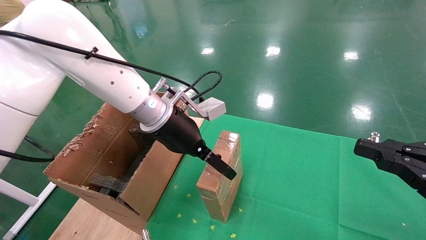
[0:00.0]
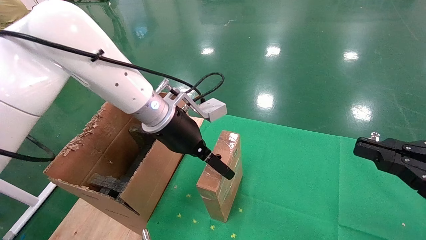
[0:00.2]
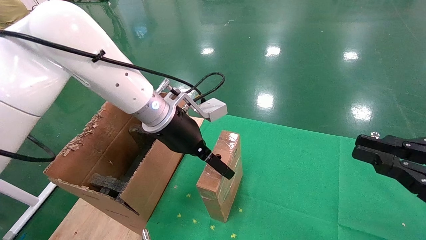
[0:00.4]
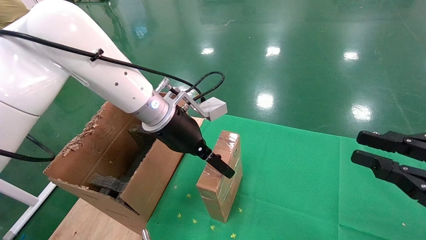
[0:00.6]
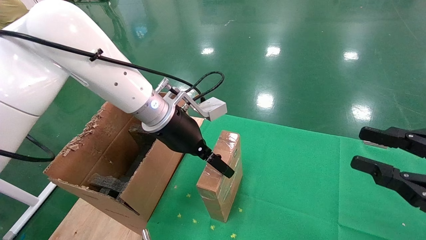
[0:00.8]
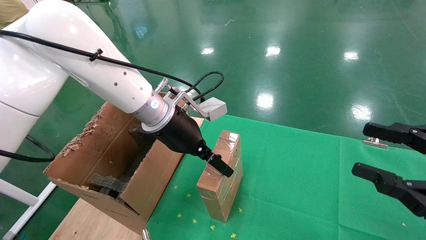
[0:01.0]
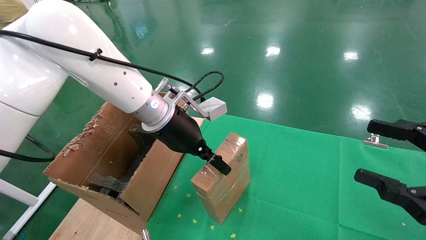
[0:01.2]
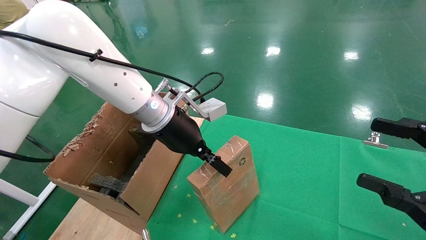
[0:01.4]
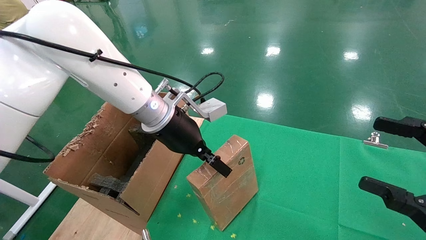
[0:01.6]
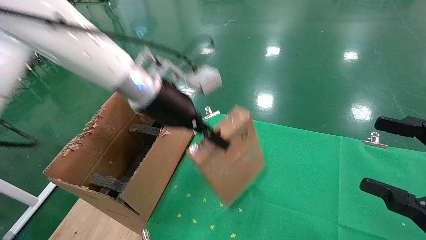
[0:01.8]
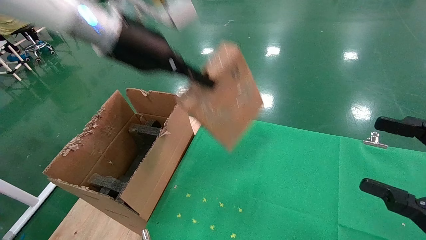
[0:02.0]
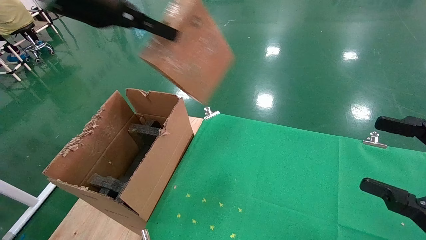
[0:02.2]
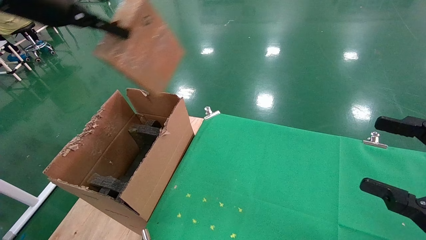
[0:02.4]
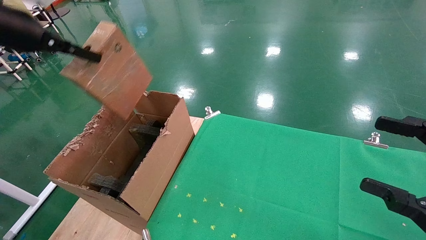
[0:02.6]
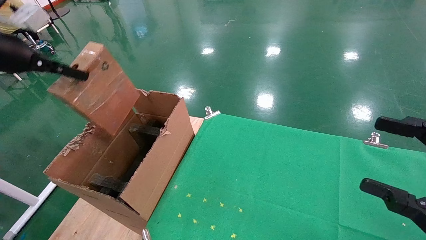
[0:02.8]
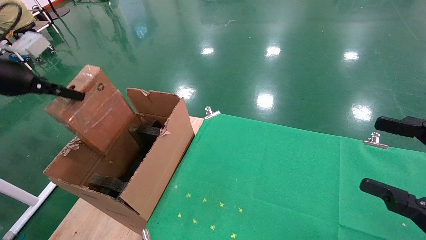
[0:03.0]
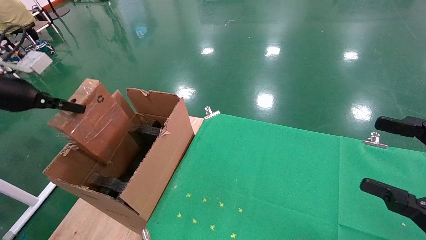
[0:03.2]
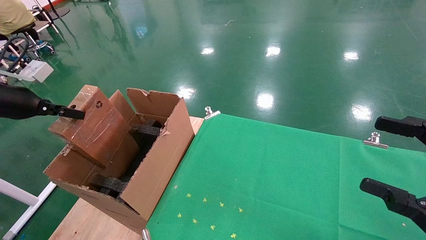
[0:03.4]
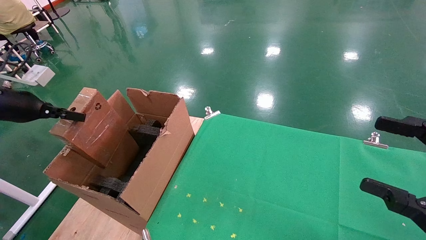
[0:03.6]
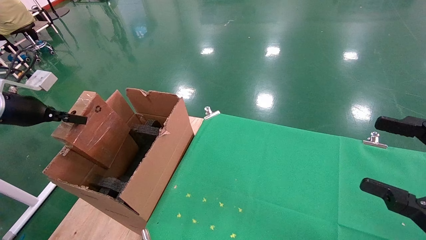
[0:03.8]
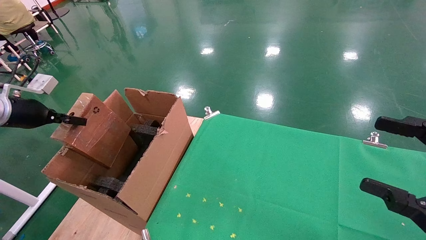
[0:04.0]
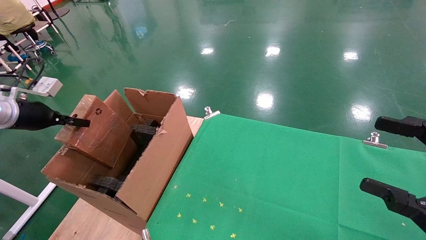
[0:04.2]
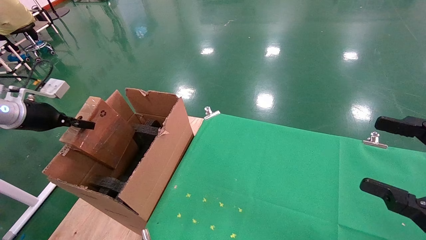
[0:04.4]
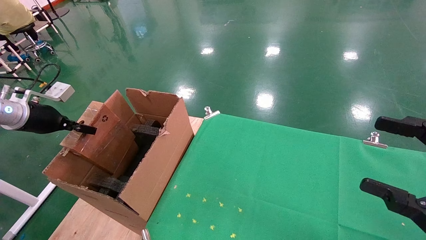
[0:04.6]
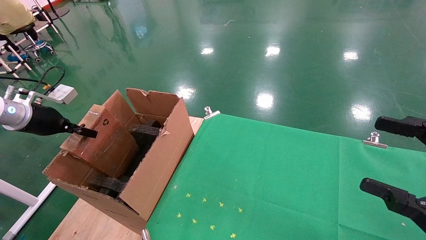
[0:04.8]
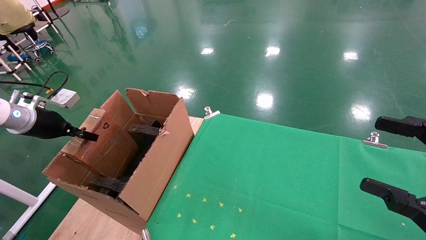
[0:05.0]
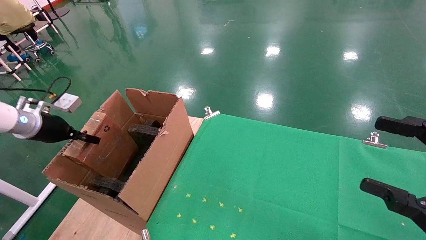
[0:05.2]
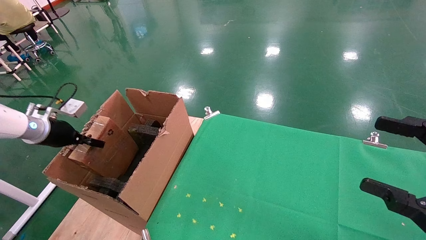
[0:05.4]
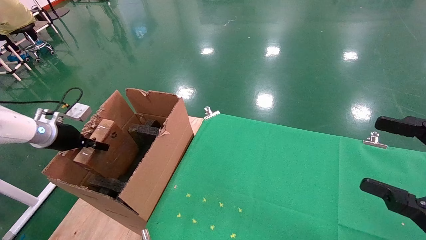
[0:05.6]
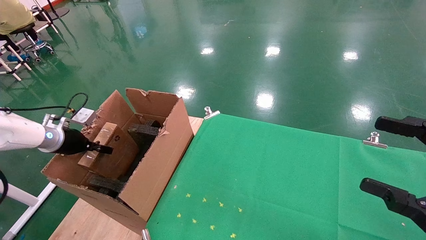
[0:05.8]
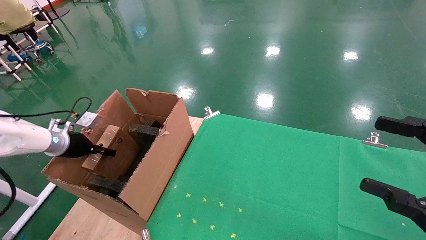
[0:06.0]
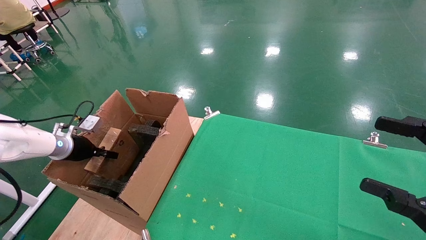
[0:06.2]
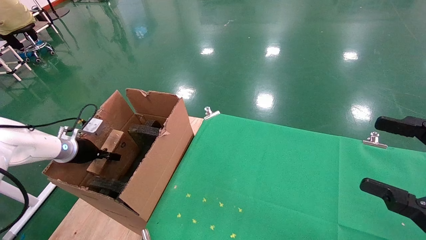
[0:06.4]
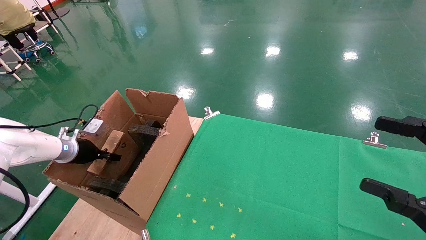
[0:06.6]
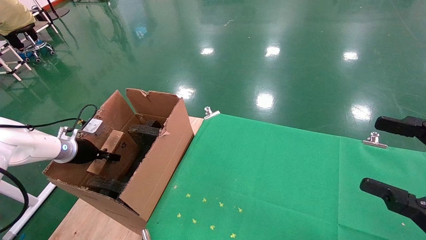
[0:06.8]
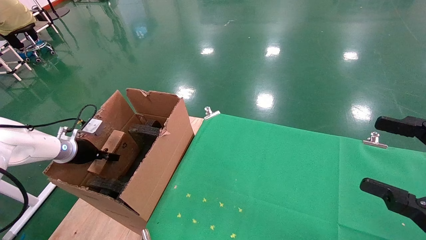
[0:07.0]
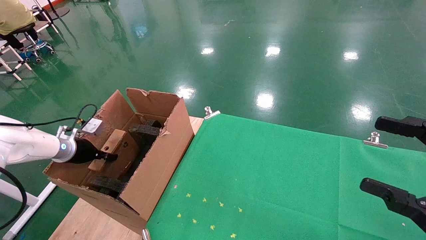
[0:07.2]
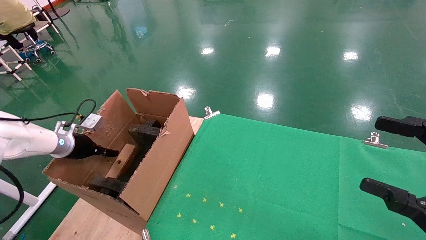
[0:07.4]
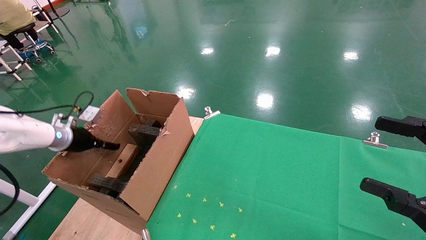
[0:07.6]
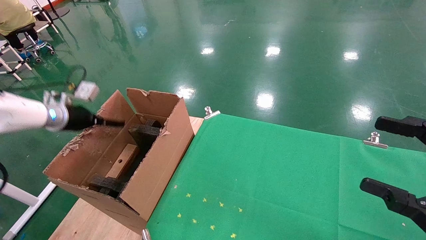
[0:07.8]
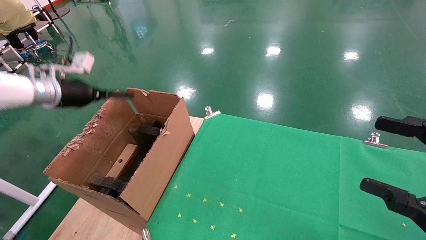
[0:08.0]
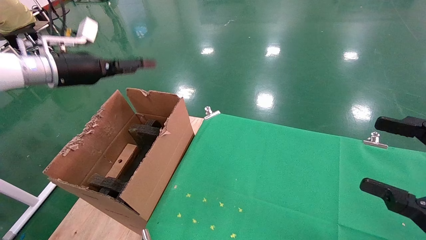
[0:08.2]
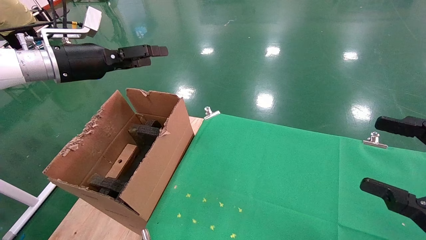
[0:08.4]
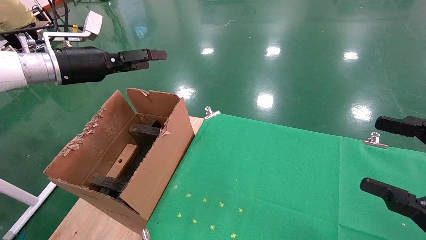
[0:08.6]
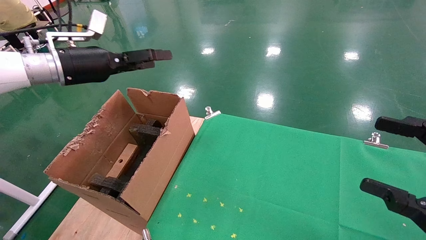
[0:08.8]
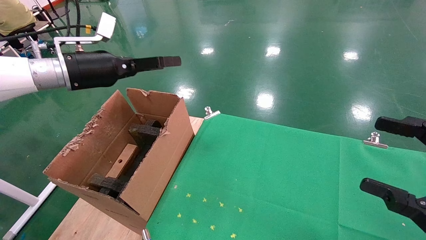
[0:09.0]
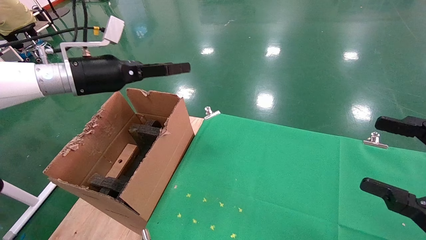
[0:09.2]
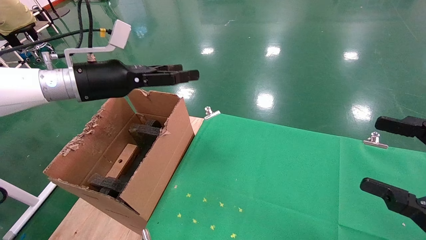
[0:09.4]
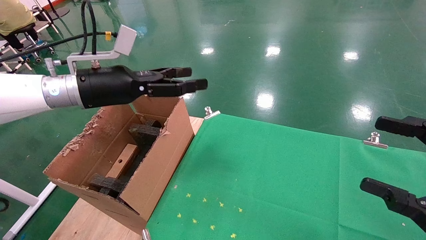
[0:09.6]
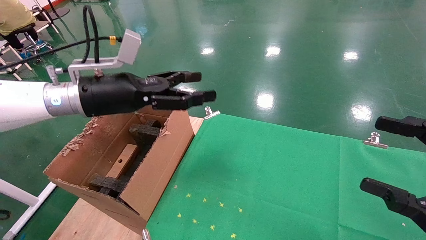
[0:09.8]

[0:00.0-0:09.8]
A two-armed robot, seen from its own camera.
Task of the whole recording: using a robotic arm to pick up a cardboard box and palace it the carton.
Step, 0:01.4 to 0:08.0: Place the mouse and the power cord paper box into the container.
0:00.0 to 0:01.4: The left gripper closes up; the right gripper opens its fingers.
0:01.4 to 0:02.8: The left gripper goes some 35 cm to the left and upward.
0:02.8 to 0:04.2: The left gripper travels downward and to the left by approximately 15 cm.
0:04.2 to 0:05.6: The left gripper goes about 10 cm downward.
0:05.6 to 0:07.0: The left gripper goes approximately 5 cm downward.
0:07.0 to 0:08.4: The left gripper travels upward and to the right by roughly 25 cm, and opens its fingers.
0:08.4 to 0:09.8: The left gripper shifts about 10 cm to the right.

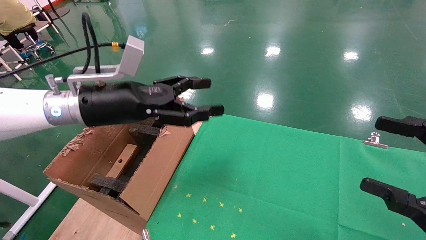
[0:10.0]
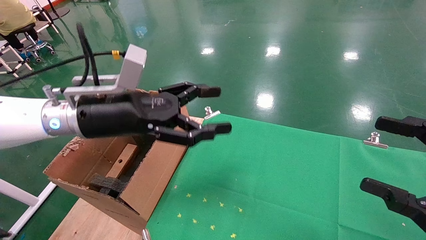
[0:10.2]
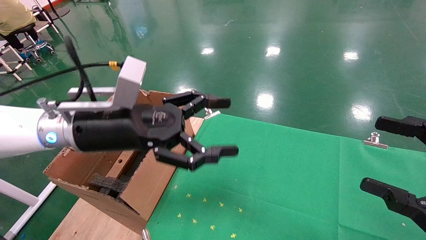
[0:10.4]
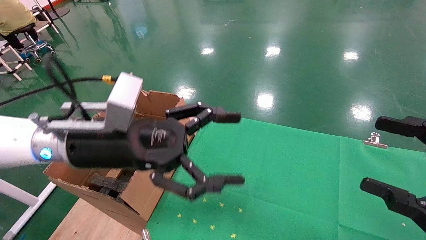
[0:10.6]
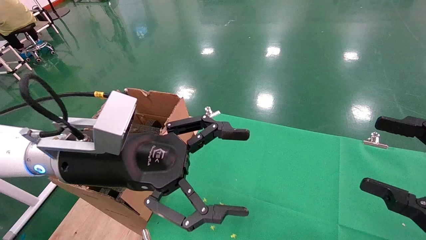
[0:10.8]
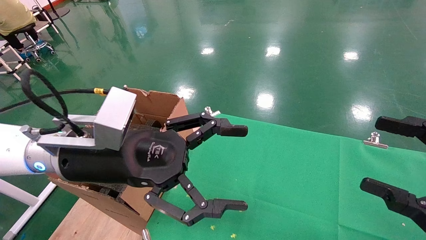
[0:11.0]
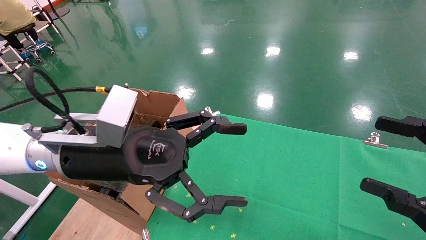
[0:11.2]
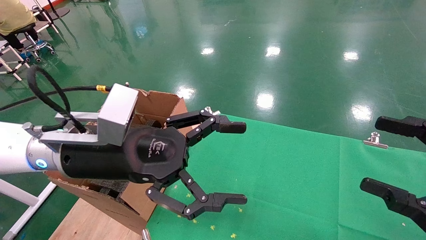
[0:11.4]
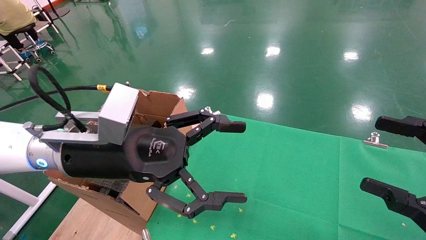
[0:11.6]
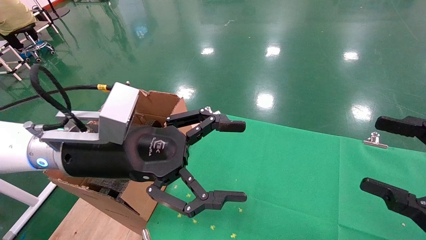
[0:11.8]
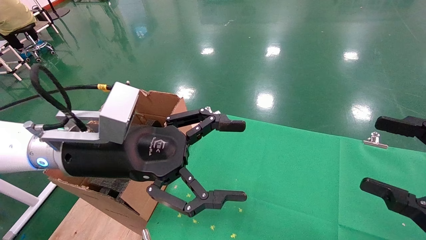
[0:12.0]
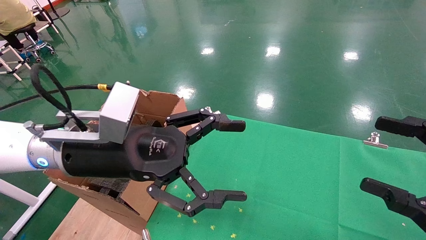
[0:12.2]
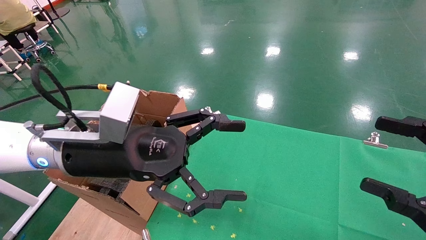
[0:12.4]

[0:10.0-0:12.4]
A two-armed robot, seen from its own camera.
Task of the whole recording: using a robotic arm to pick up a cardboard box and palace it the carton.
0:10.0 to 0:11.2: The left gripper heads backward and to the right, covering about 10 cm.
0:11.2 to 0:12.4: Neither gripper changes place.
